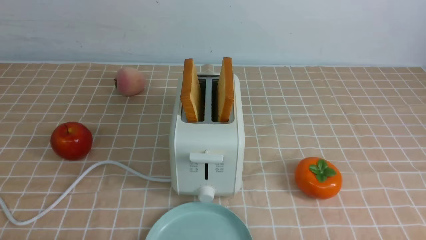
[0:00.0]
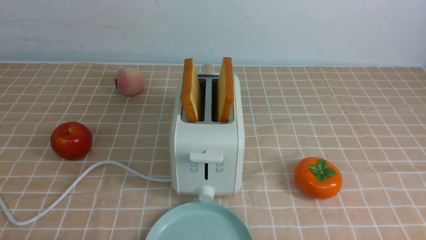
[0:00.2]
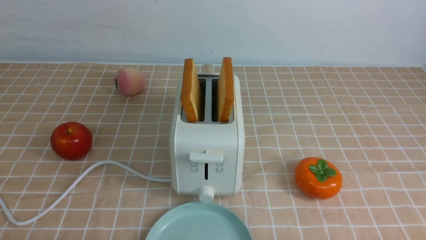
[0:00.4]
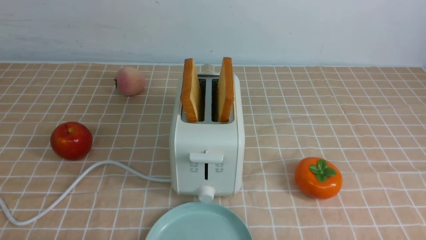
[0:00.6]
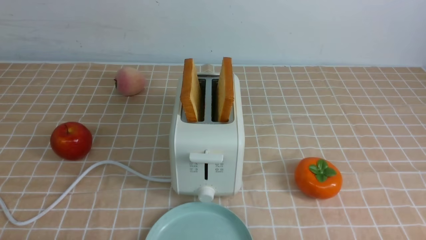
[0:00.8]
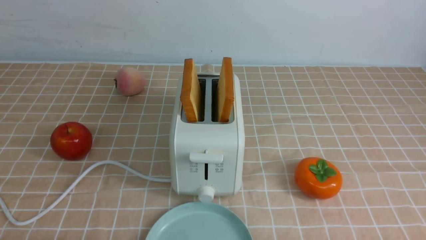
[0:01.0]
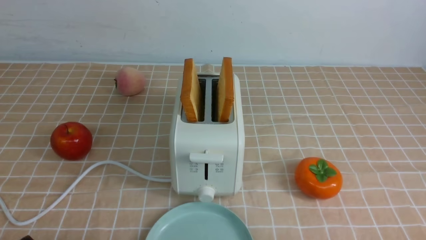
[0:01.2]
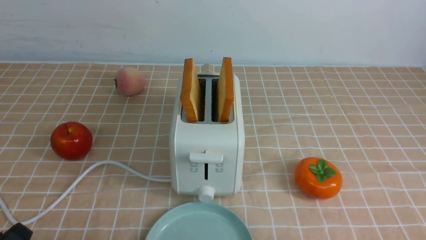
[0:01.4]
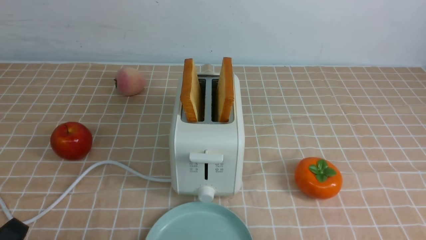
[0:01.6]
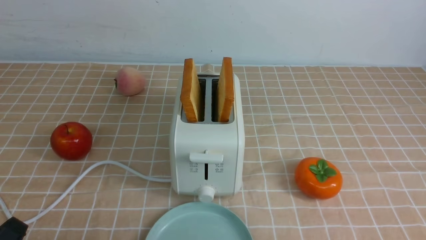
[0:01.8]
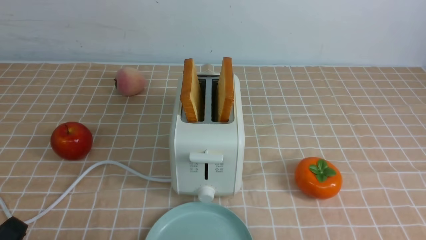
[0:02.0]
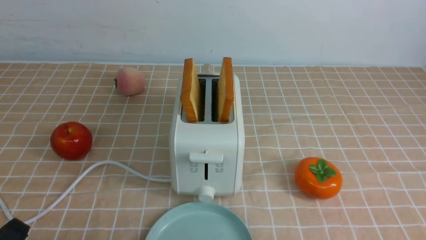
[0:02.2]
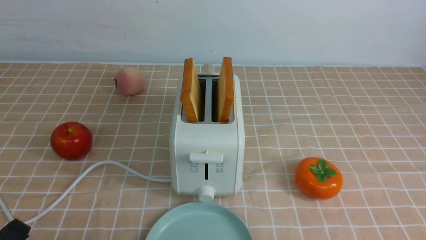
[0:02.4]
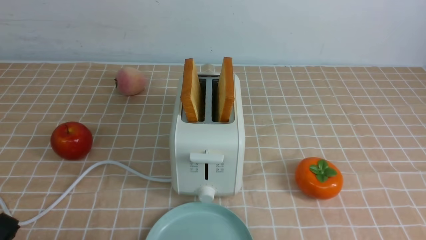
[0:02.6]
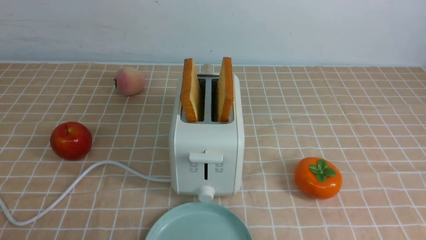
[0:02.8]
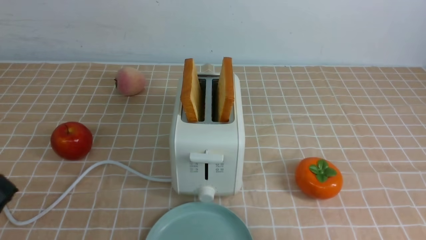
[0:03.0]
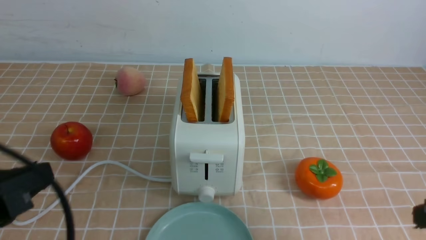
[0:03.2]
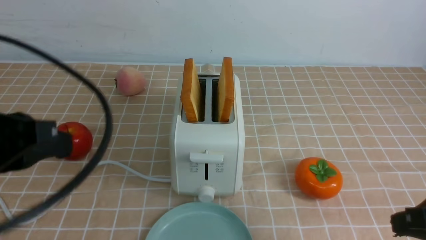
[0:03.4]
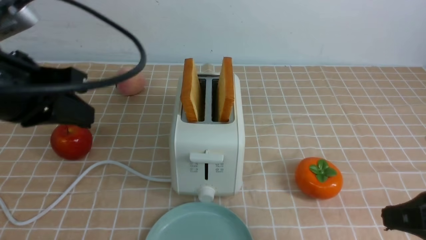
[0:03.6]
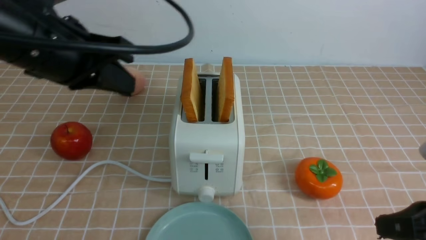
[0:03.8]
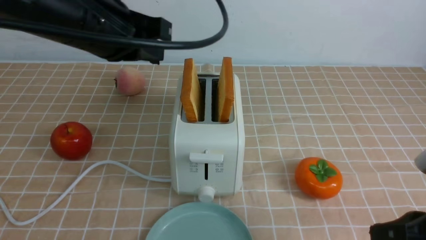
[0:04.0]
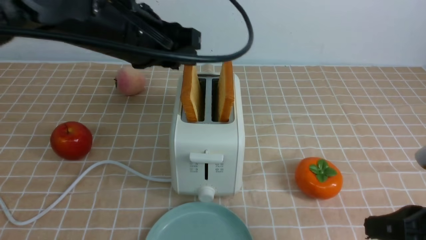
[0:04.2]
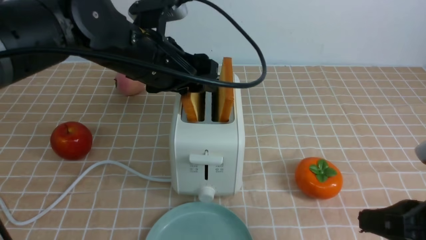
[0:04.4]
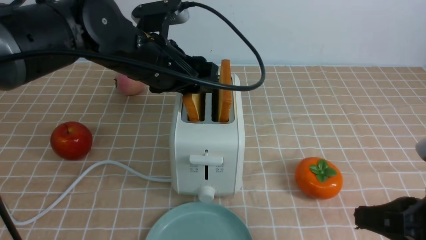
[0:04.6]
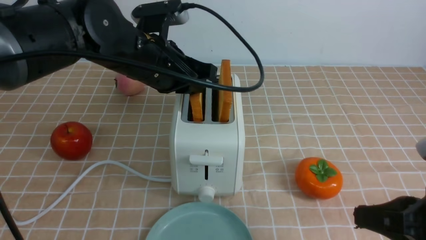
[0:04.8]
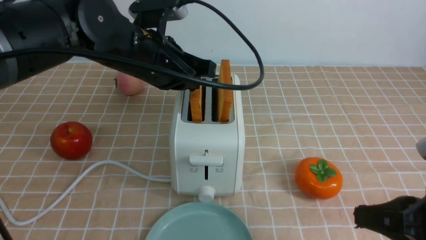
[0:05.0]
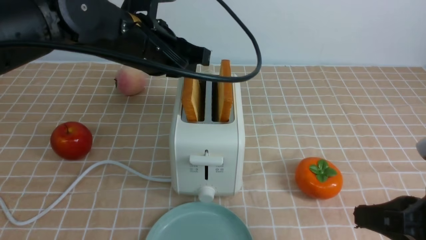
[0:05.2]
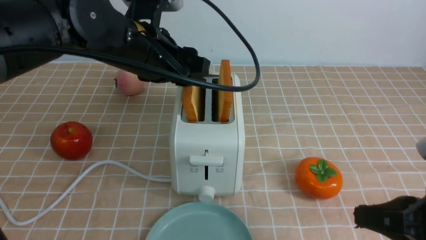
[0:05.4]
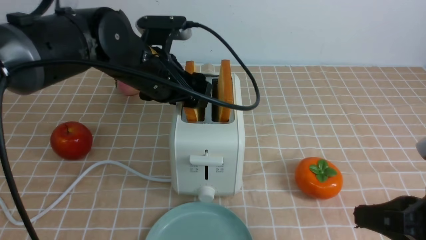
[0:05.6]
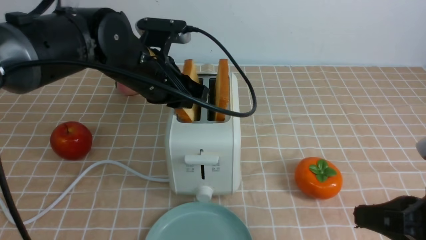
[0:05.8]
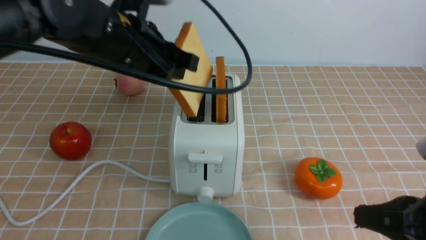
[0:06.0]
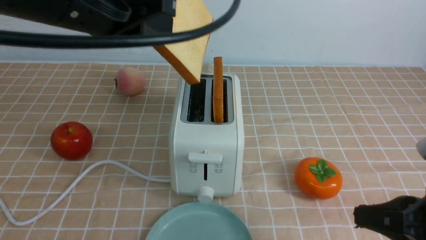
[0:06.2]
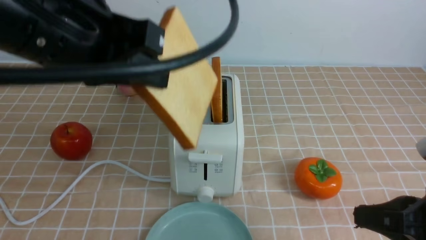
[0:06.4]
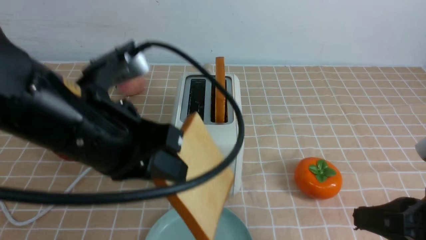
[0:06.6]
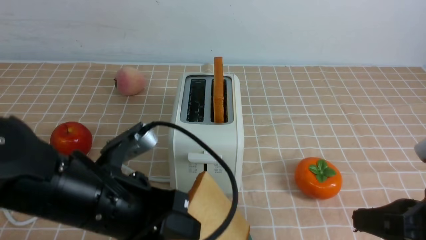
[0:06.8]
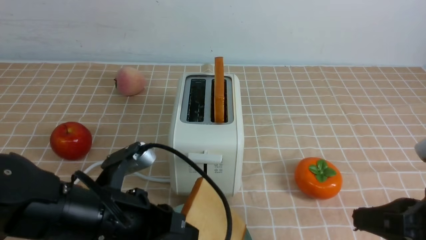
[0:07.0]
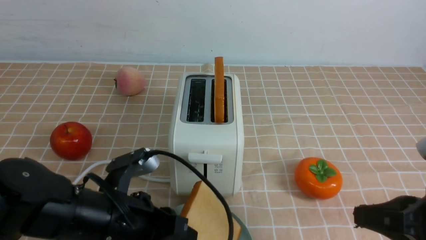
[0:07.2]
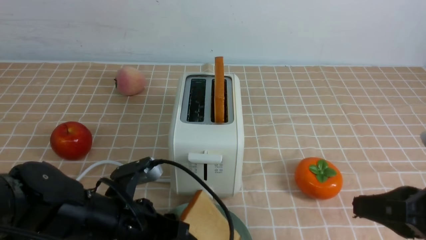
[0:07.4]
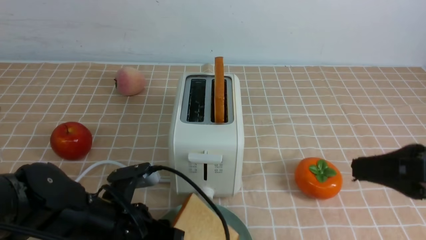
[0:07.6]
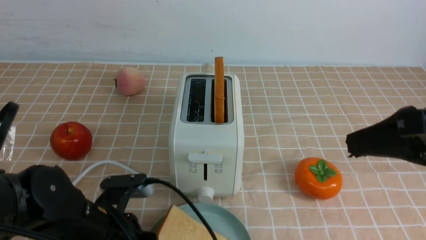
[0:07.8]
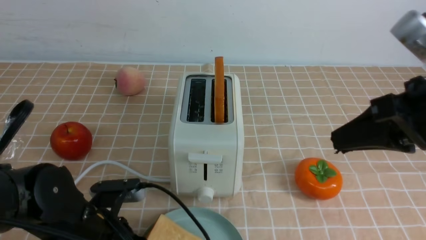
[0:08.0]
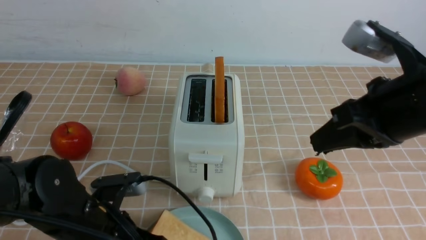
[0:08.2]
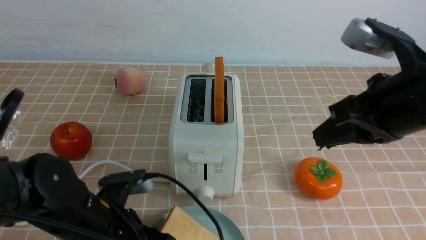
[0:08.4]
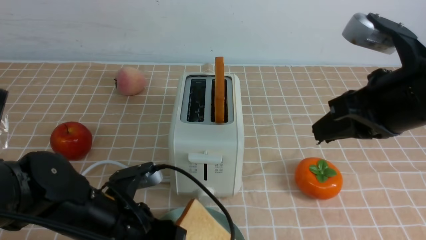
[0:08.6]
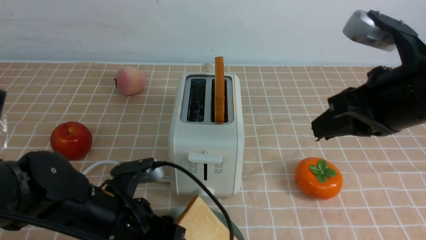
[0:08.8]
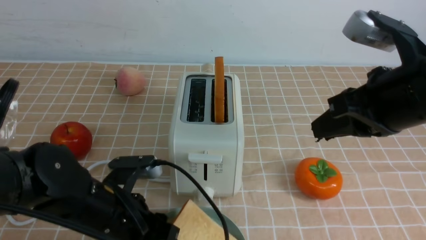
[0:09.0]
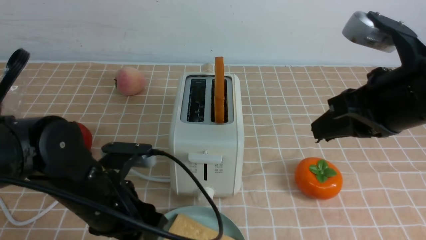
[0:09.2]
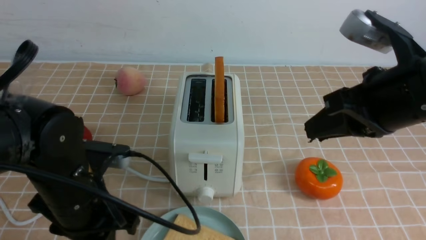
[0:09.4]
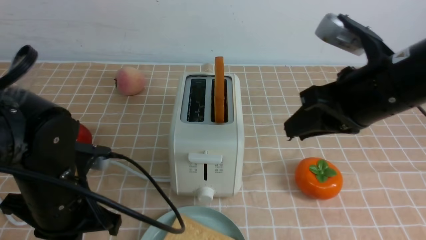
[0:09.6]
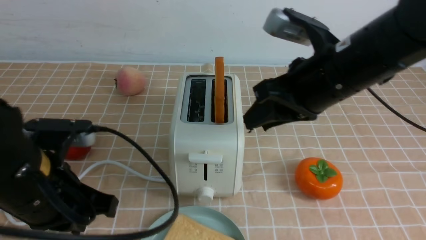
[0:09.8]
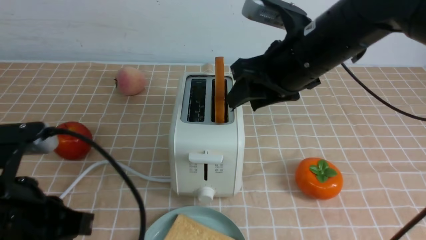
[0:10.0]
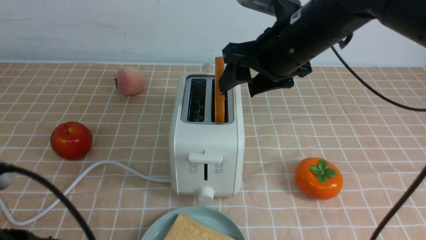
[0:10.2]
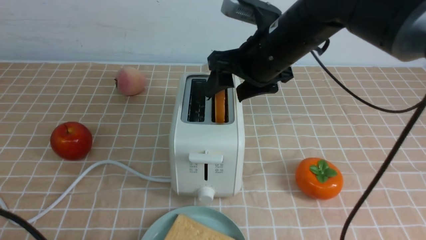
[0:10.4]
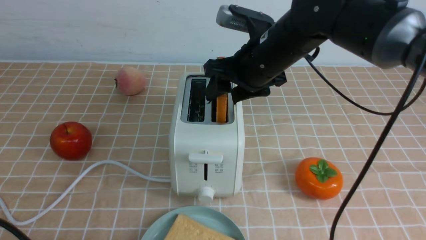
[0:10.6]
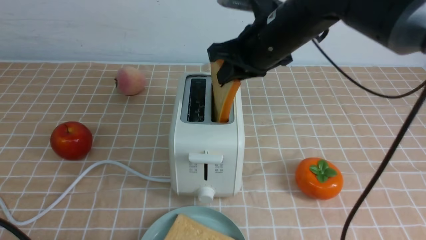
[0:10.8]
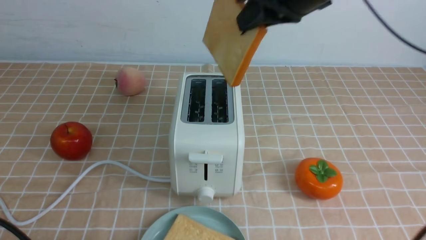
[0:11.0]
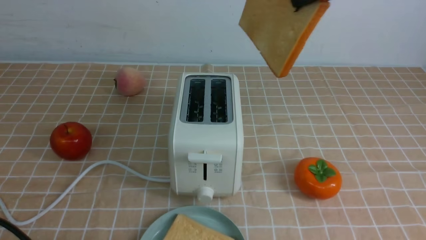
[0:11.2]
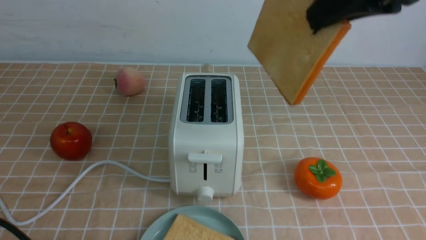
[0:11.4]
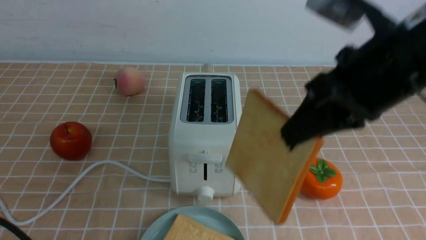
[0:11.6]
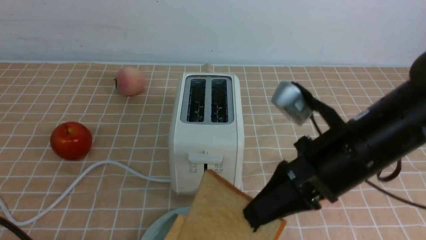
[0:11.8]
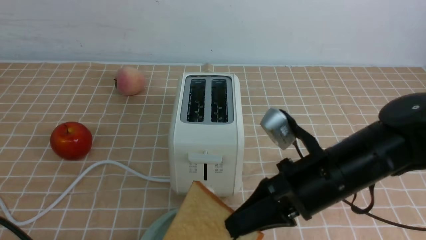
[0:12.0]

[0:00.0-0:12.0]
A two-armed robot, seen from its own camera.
Task of the whole recording: take toasted bread from bread machine on light coffee tablecloth place on plate.
Step, 0:00.0 to 0:06.0: use the left arm to take out a slice of bread.
Step, 0:06.2 to 0:09.6: use the left arm to put a slice of bread into the empty plate.
Step, 0:09.8 to 0:10.8: use the right arm to take out a slice of bread.
0:01.6 to 0:03.0: The left gripper goes about 10 cm upward, and closes up.
0:03.0 to 0:04.4: The left gripper moves forward and to the right, approximately 30 cm, and opens its fingers; the right gripper travels downward by roughly 5 cm.
0:04.4 to 0:06.0: The left gripper changes place by some 5 cm, and closes.
0:06.0 to 0:07.6: The right gripper is displaced upward by approximately 5 cm; the left gripper shifts some 25 cm downward and backward, and opens.
0:07.6 to 0:09.0: The right gripper travels forward by approximately 5 cm.
0:09.0 to 0:10.4: The right gripper goes about 15 cm forward and to the left, and opens its fingers; the left gripper goes some 15 cm backward, to the left and upward, and closes up.
0:10.4 to 0:12.0: The right gripper travels backward and downward by approximately 15 cm, and closes its fingers.

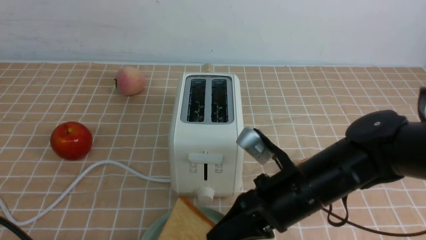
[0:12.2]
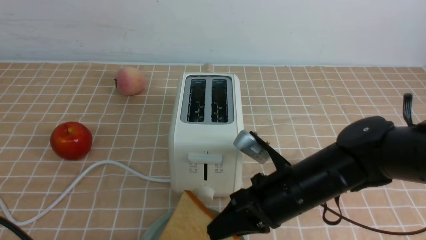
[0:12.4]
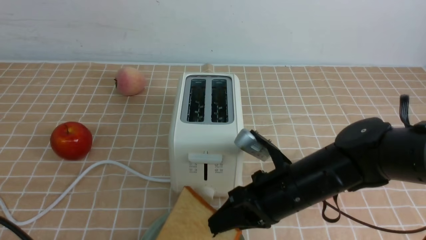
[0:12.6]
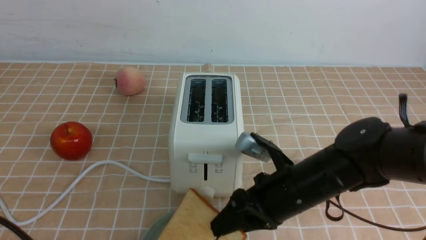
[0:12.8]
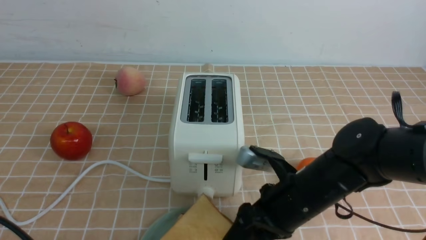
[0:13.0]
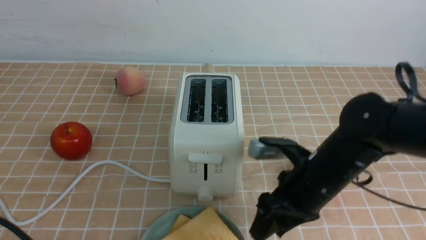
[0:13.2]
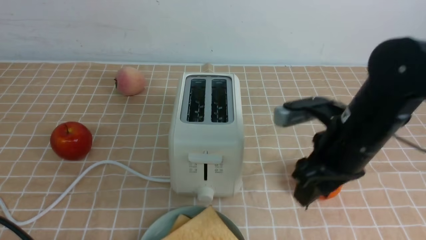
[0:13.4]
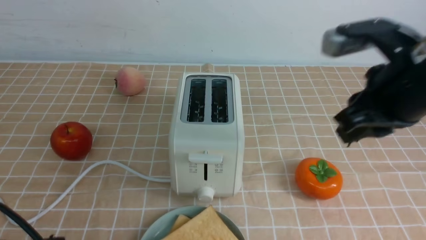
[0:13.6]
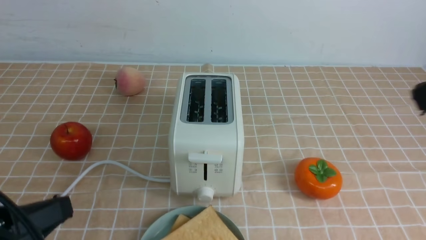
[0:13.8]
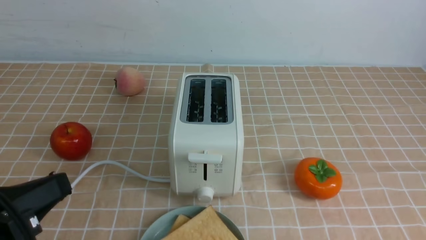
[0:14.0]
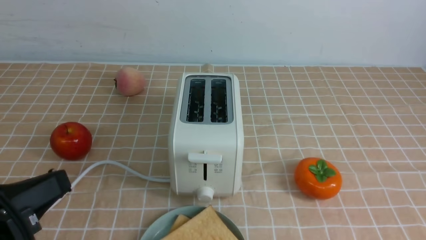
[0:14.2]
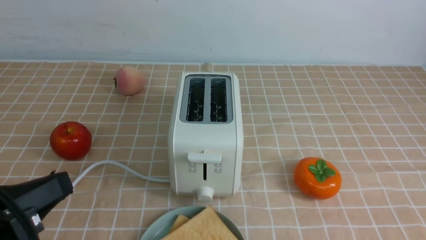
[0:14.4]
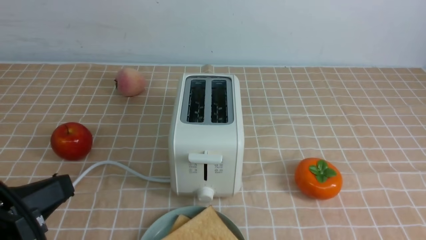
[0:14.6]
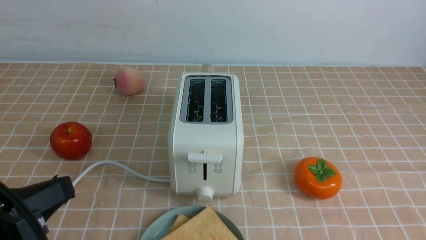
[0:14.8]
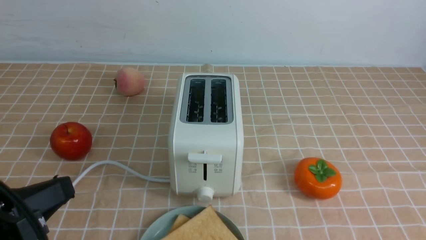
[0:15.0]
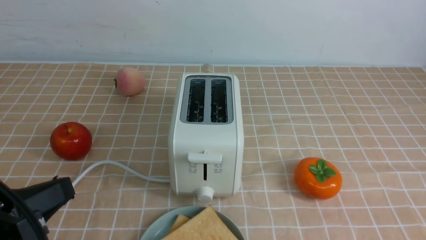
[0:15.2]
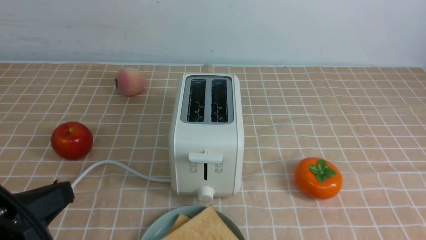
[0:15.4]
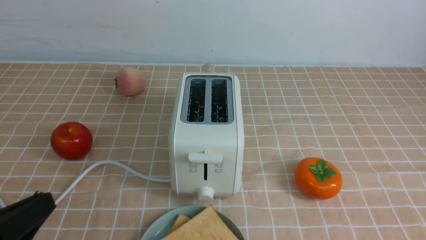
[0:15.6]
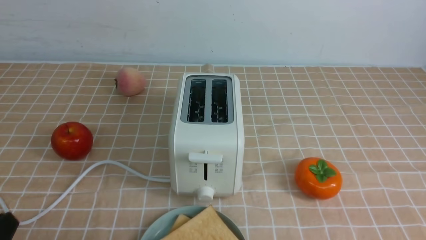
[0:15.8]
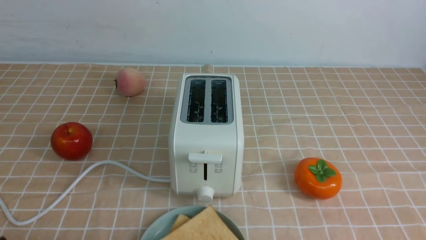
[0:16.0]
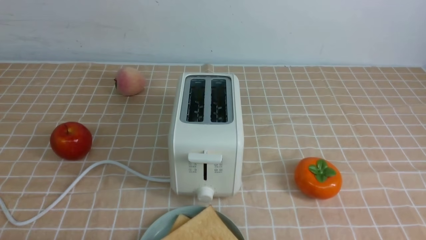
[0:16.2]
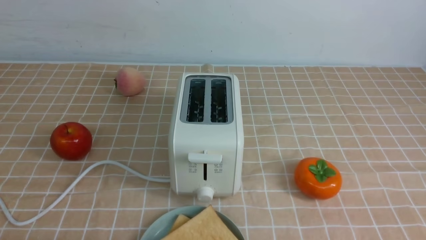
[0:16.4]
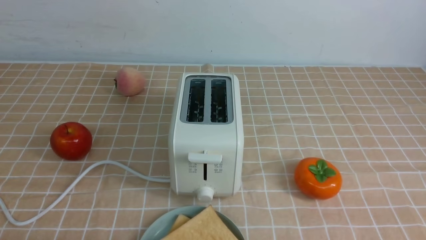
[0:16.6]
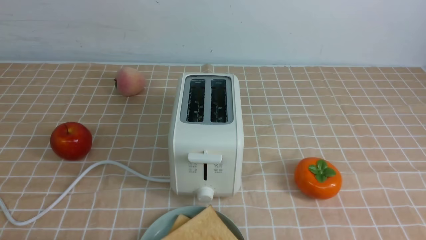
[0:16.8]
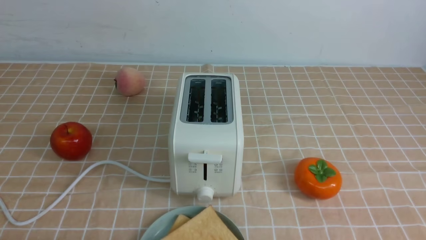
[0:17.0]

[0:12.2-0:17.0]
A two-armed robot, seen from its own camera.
Task of the whole recording: take toasted bread from bread machine on light coffee tablecloth place on plate.
0:12.2 to 0:13.8: The right gripper travels upward, to the right and backward by about 25 cm, and opens, then closes again.
0:15.4 to 0:17.0: The left gripper moves downward, some 10 cm.
